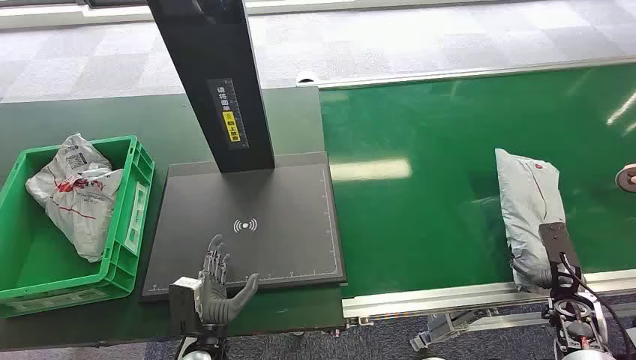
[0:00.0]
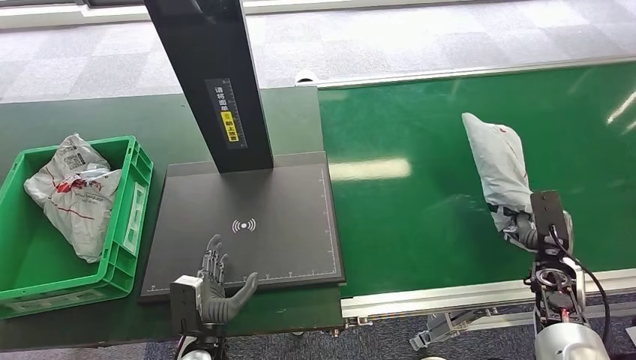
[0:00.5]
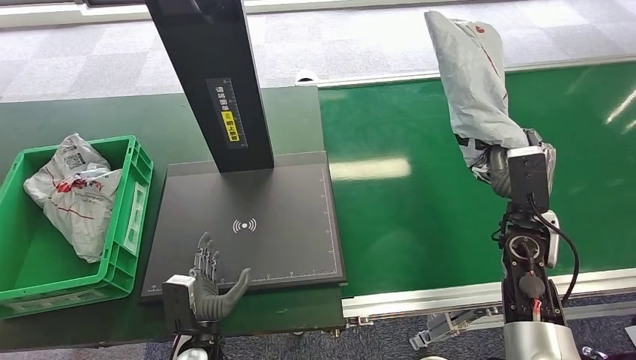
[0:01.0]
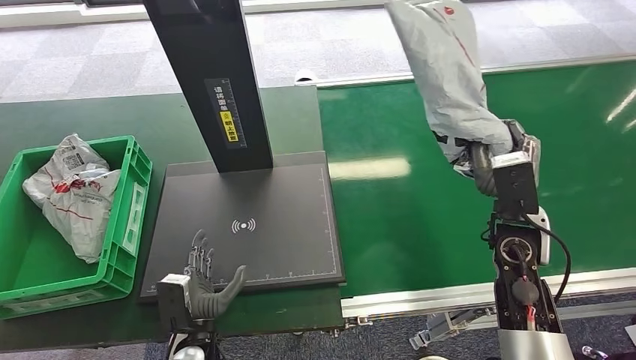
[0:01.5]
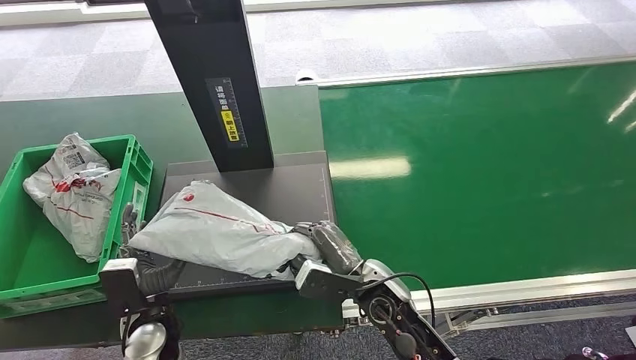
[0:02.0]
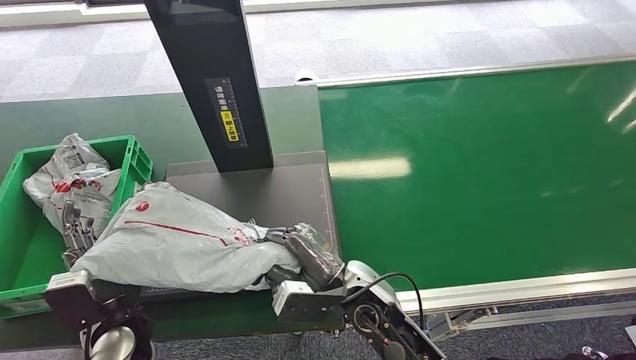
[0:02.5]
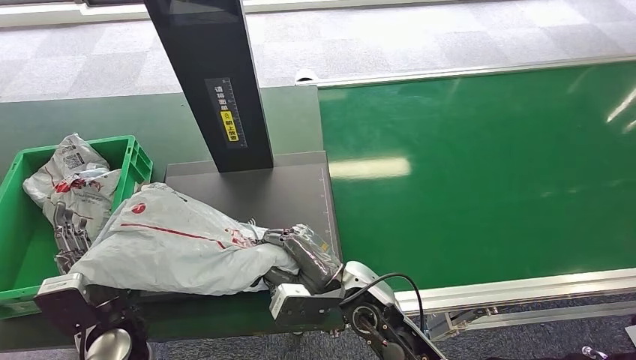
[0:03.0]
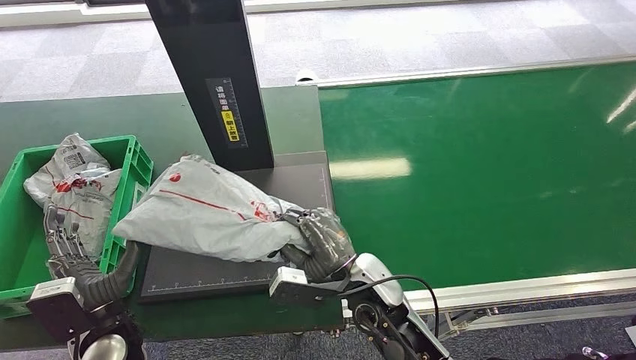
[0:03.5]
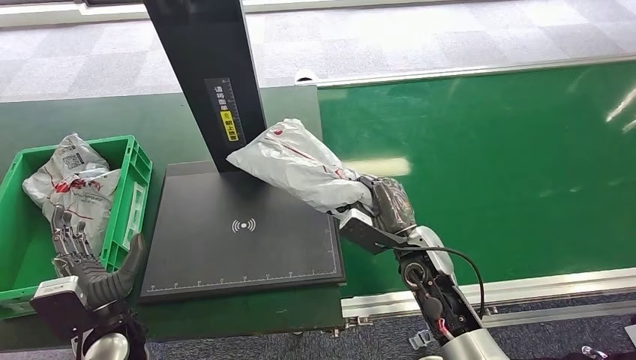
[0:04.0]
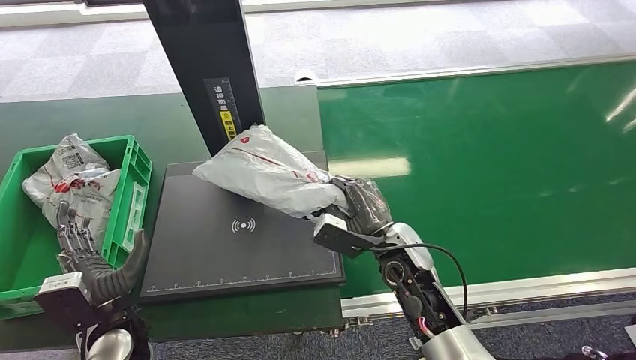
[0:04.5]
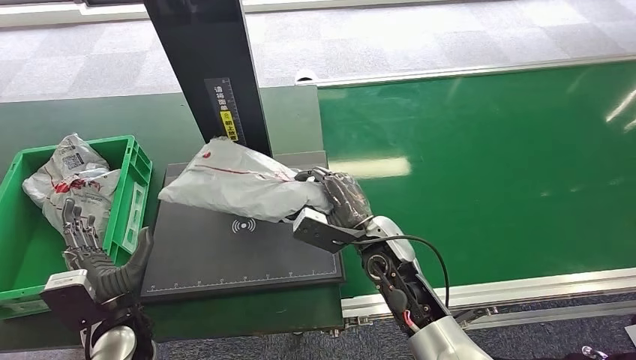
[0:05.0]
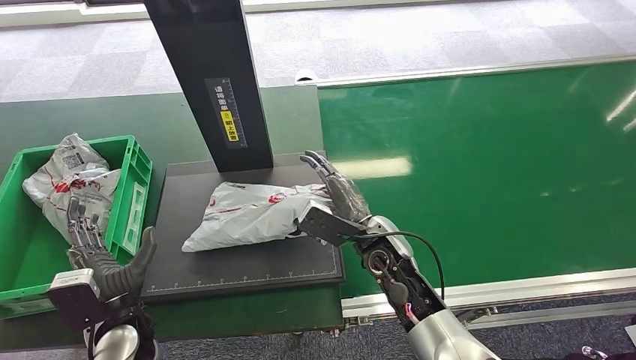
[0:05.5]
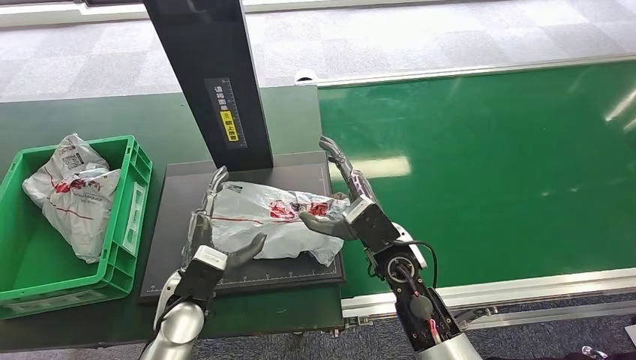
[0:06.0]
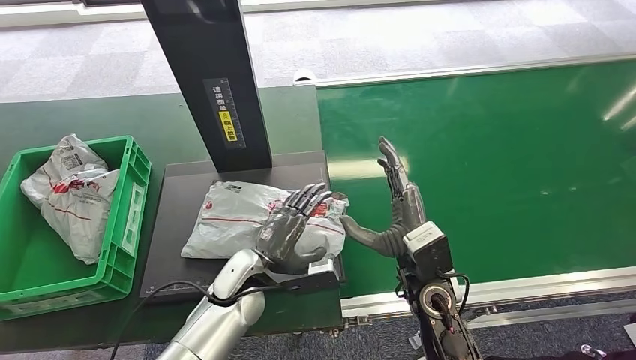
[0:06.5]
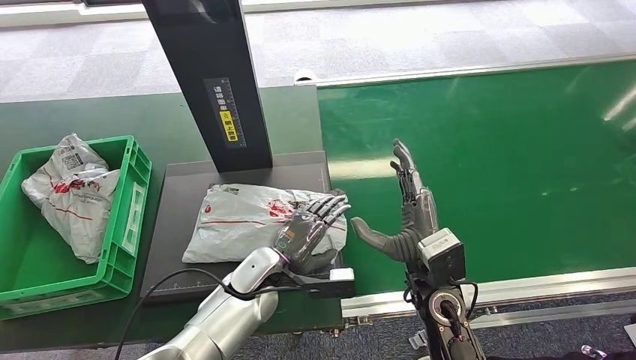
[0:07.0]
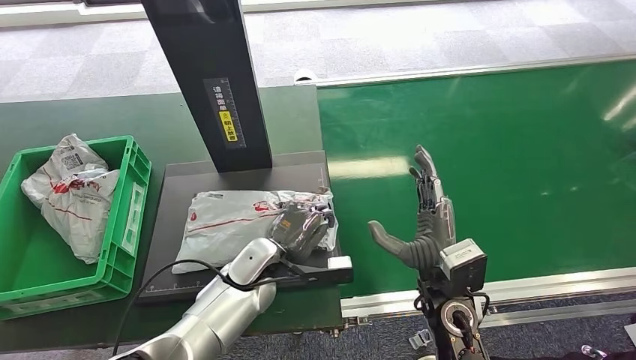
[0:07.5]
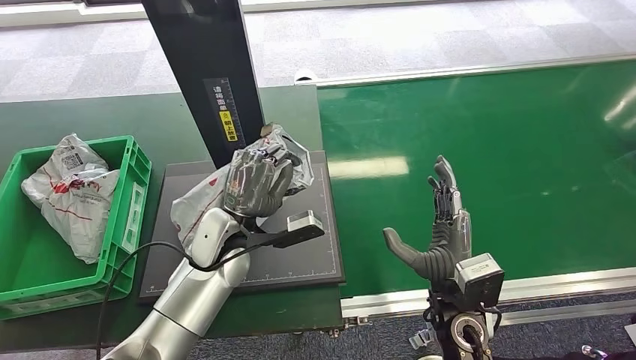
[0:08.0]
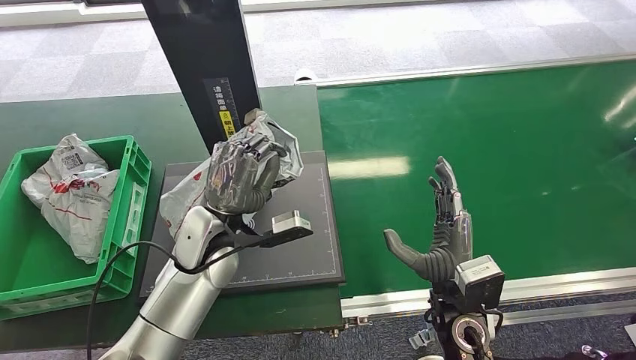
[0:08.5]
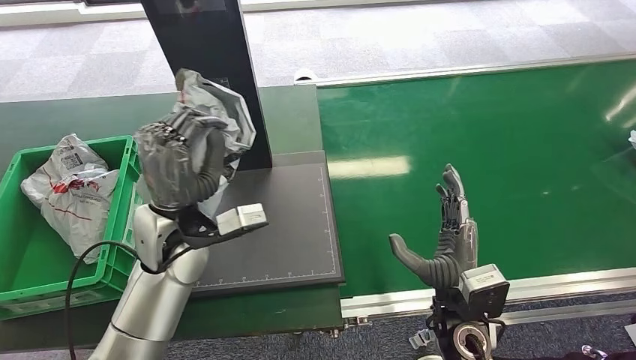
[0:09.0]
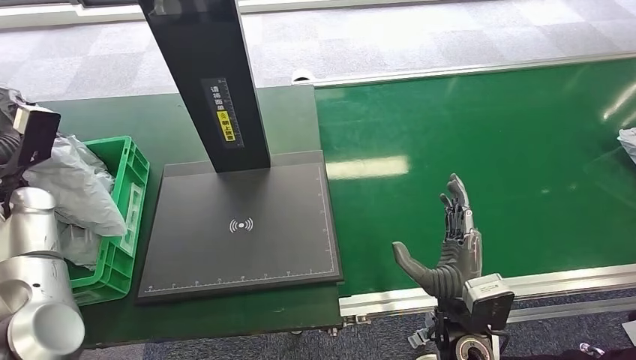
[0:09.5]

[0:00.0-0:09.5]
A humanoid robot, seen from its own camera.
Step, 0.0 to 1.0 s: Pick up the package from the conveyor belt.
Step, 1.5 to 7.5 s: Place the package onto the inbound machine.
Step, 8.0 to 9.0 s: Pick up the package from the inbound machine.
4.0 to 5.5 s: The right hand moves to the left, roughly 5 cm.
5.5 to 7.5 s: The right hand shifts roughly 10 cm backward and to the right. The left hand shifts about 20 cm to the right and forward.

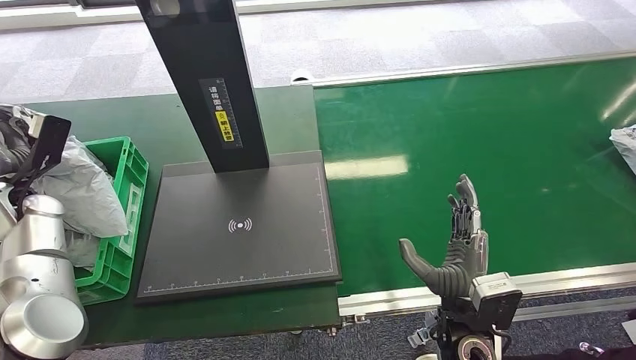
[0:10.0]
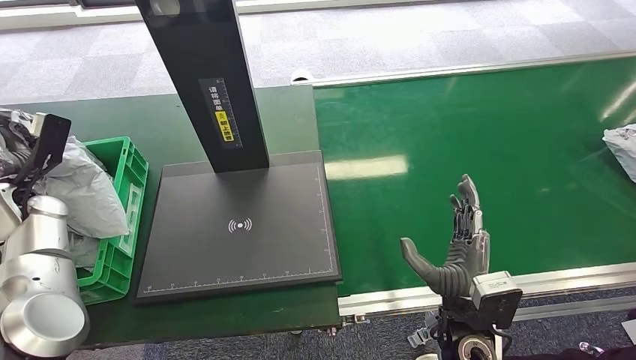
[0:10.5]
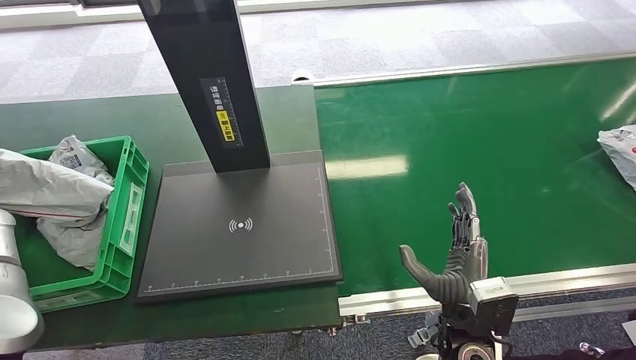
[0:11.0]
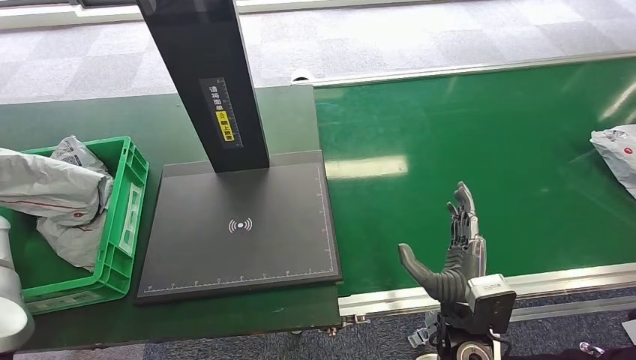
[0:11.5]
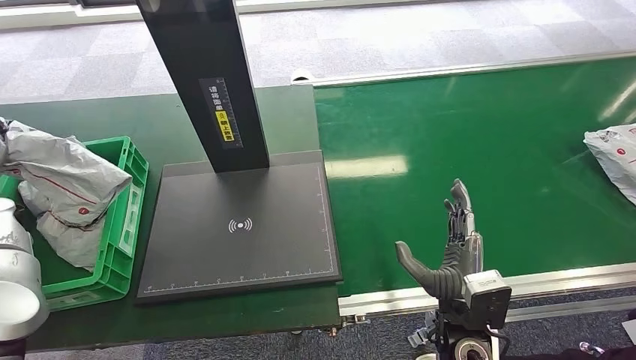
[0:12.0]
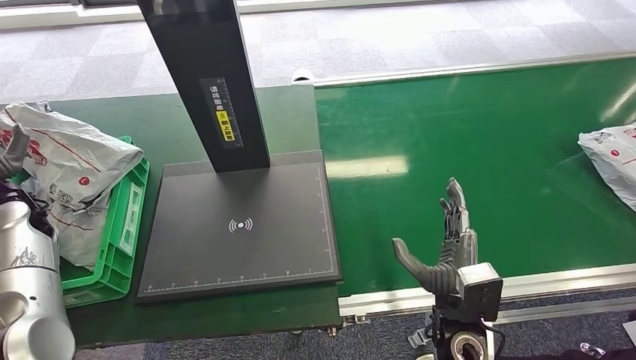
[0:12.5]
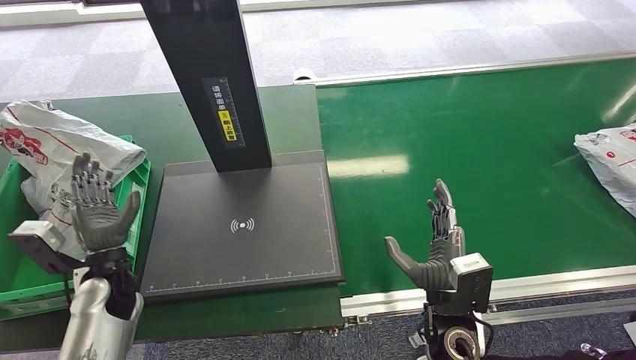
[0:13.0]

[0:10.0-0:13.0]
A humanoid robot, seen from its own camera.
Step, 10.0 to 13.0 s: Place the package into the parcel locker.
10.0 to 11.5 s: The left hand heads to the left, covering about 10 cm.
11.5 to 13.0 s: The left hand moves to the right, roughly 25 cm.

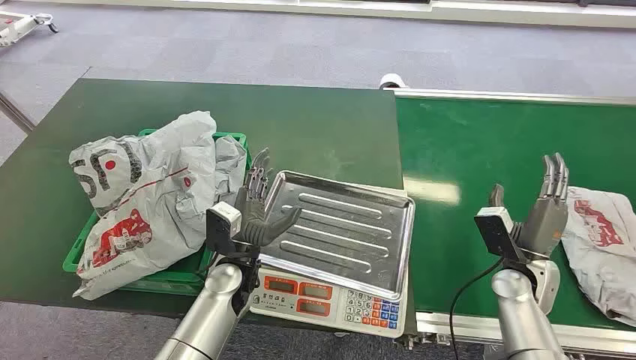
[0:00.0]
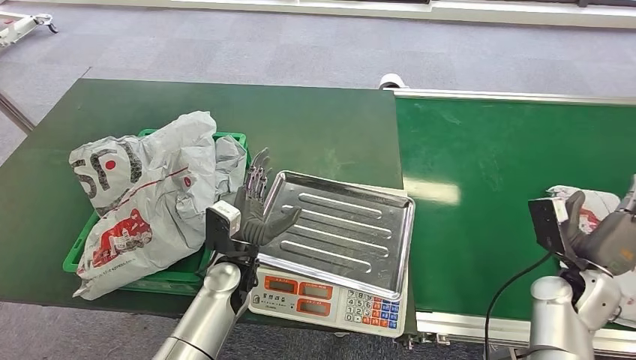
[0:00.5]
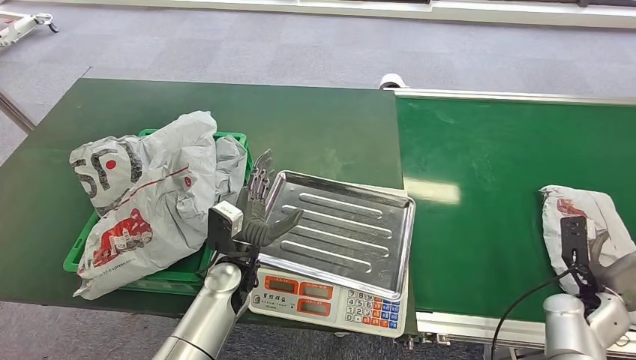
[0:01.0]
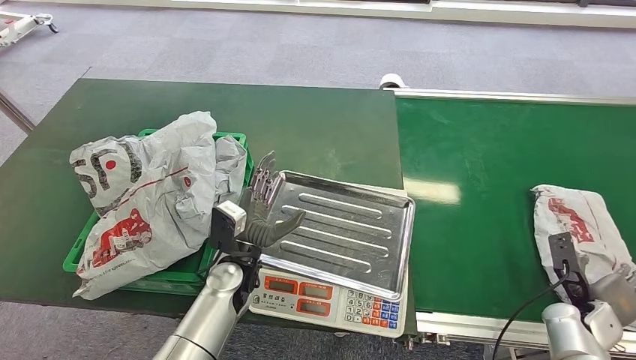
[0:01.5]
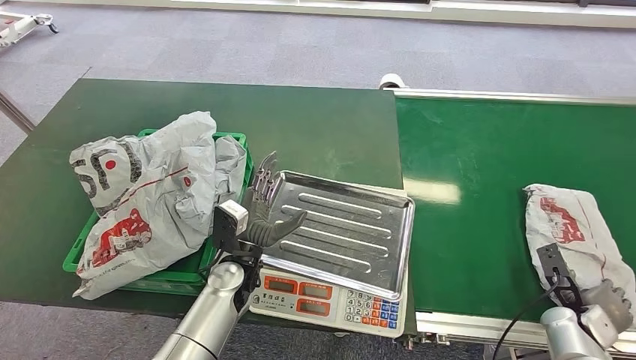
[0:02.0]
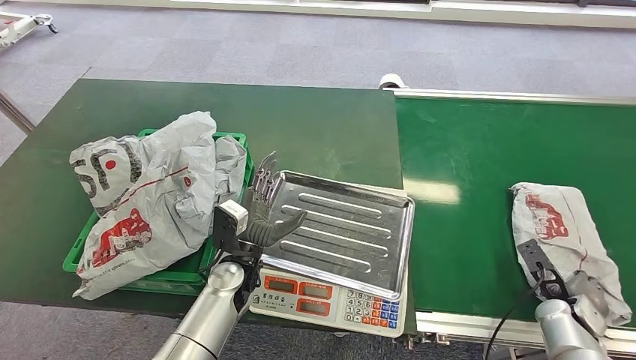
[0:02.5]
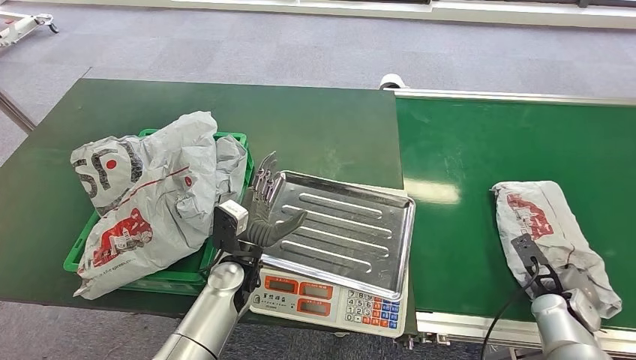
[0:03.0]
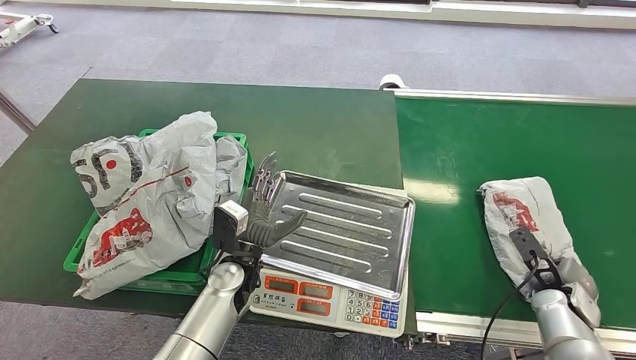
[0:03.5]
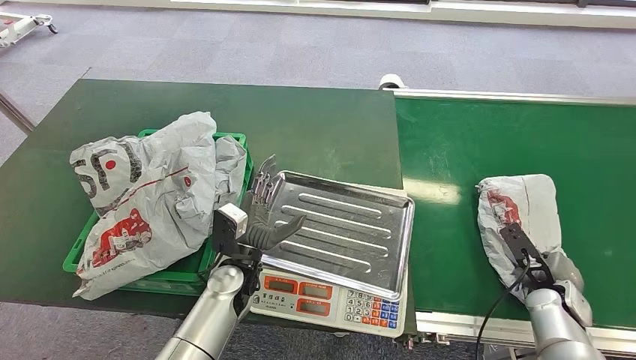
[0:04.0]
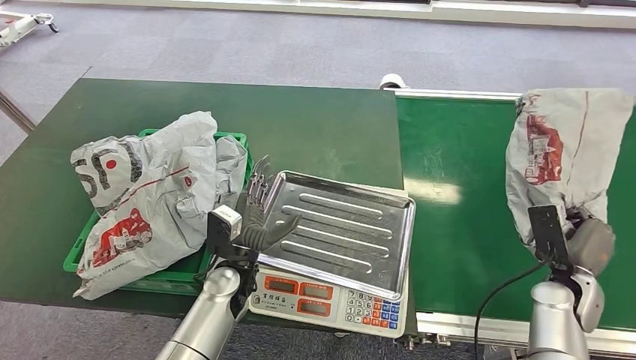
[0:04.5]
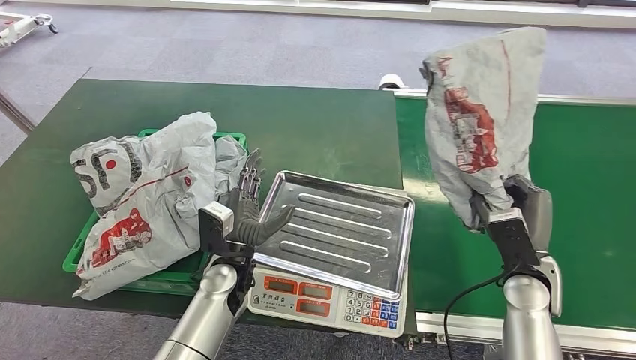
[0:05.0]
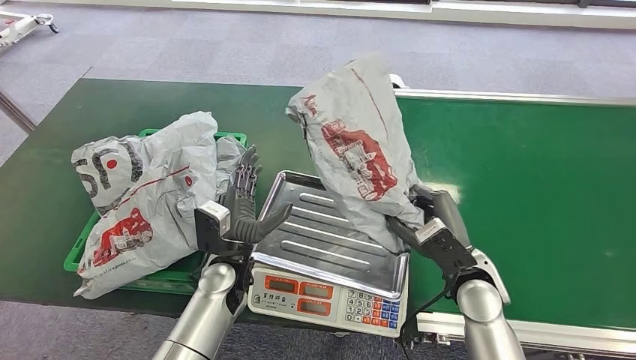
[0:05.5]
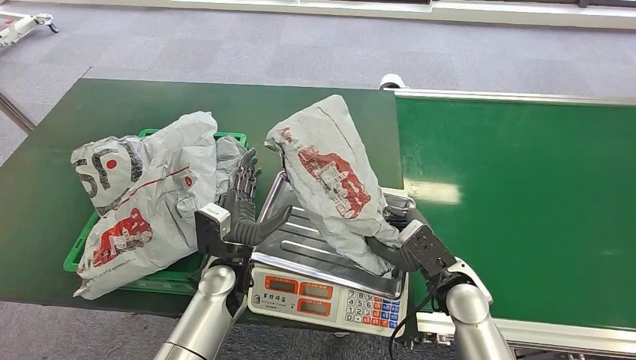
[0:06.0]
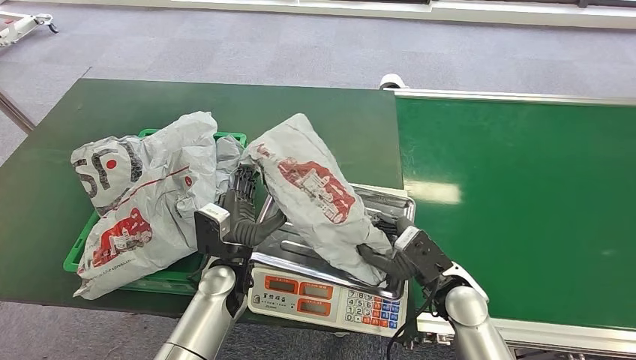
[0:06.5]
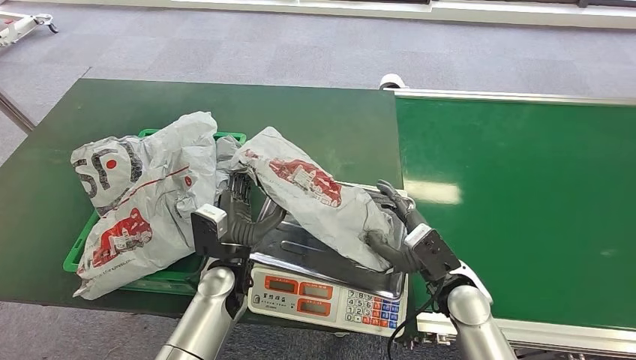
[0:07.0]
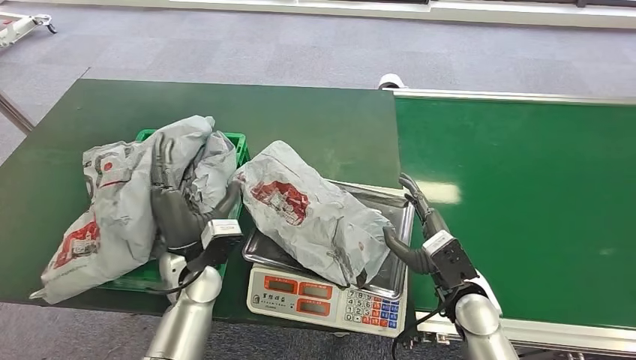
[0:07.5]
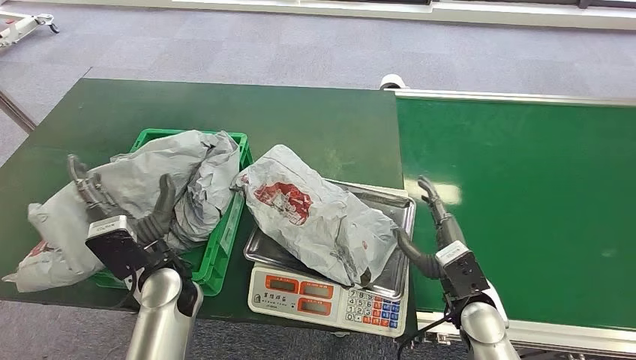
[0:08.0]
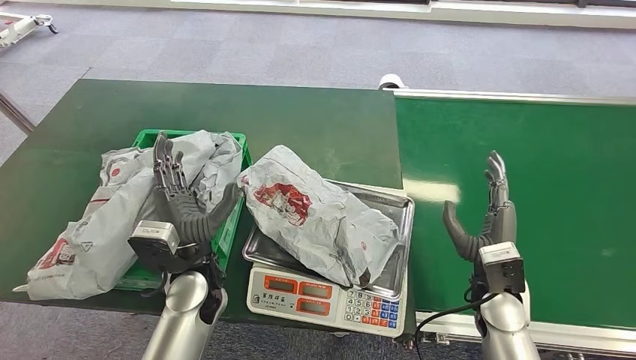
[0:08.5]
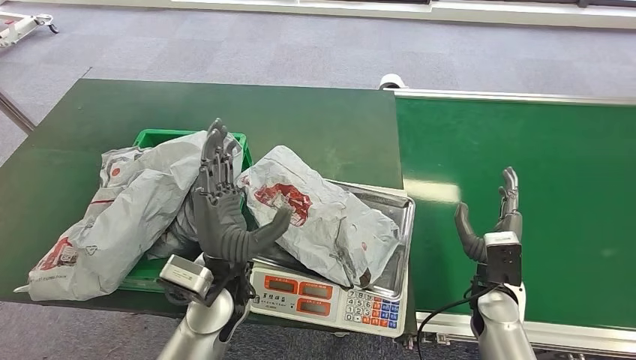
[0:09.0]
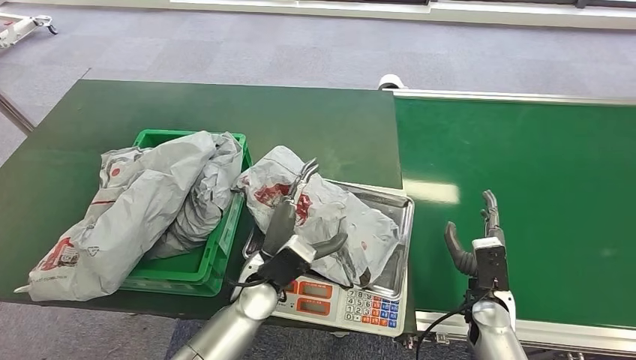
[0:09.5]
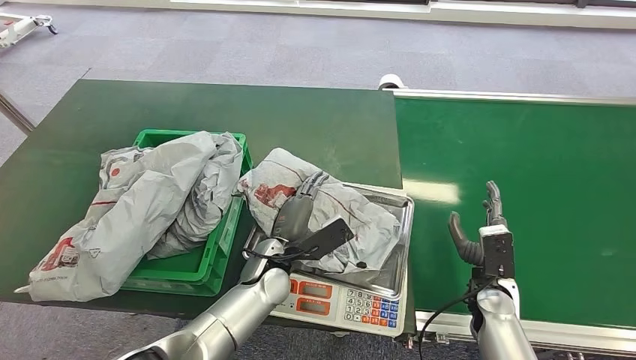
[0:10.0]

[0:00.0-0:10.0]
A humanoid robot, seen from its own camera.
Step, 0.0 to 4.5 s: Pick up the package from the conveyor belt.
Step, 5.0 to 7.5 s: Place the package onto the inbound machine.
4.0 to 6.0 s: The right hand goes roughly 20 cm to the left.
